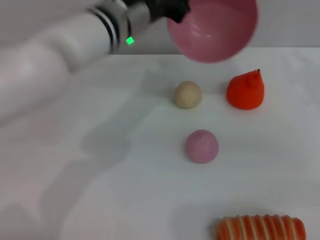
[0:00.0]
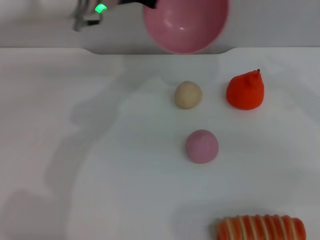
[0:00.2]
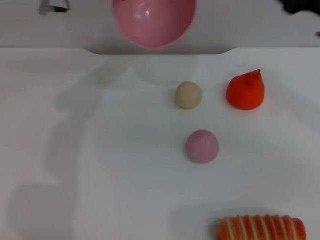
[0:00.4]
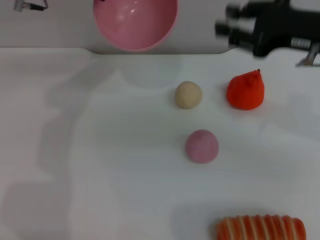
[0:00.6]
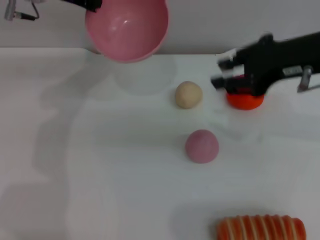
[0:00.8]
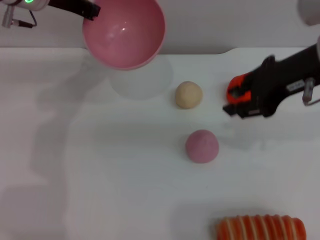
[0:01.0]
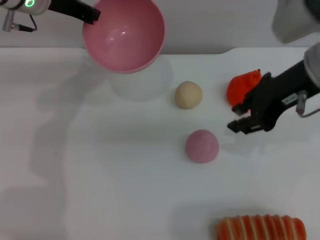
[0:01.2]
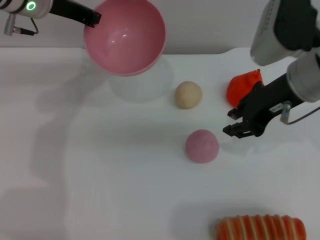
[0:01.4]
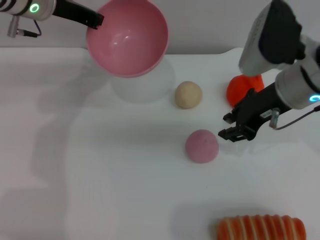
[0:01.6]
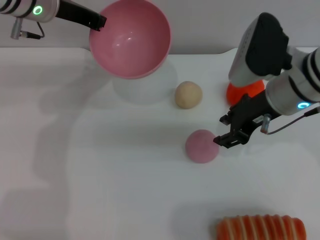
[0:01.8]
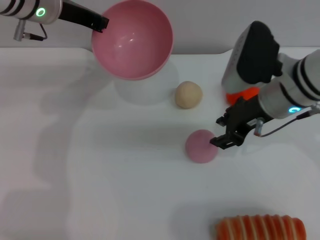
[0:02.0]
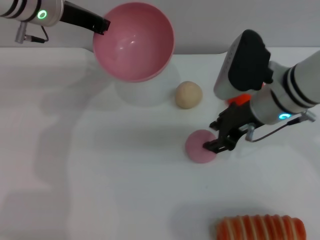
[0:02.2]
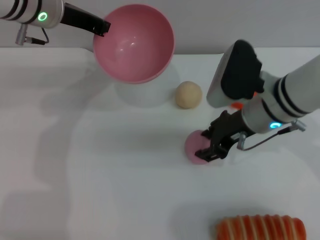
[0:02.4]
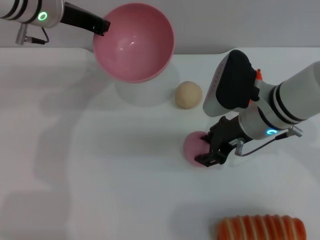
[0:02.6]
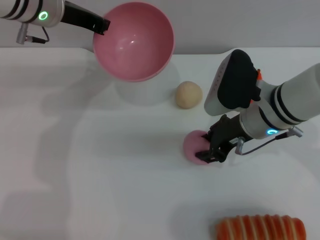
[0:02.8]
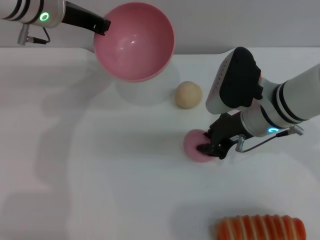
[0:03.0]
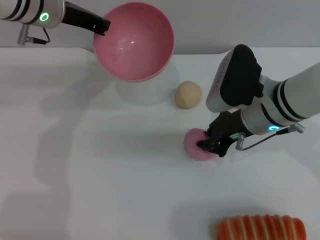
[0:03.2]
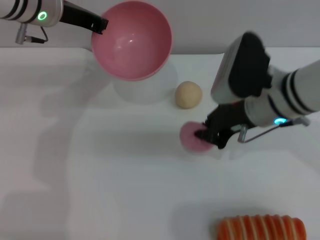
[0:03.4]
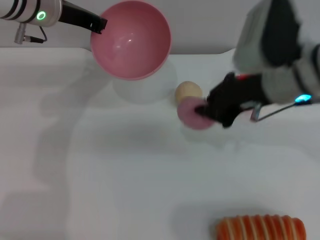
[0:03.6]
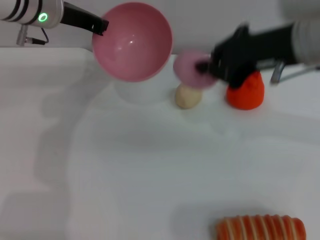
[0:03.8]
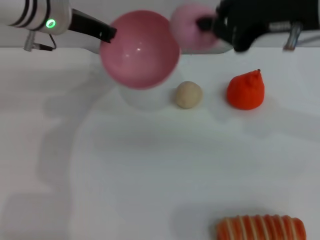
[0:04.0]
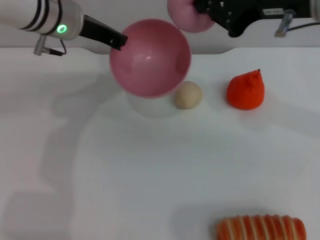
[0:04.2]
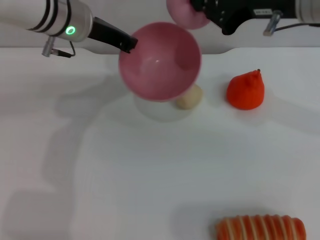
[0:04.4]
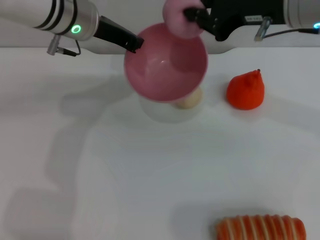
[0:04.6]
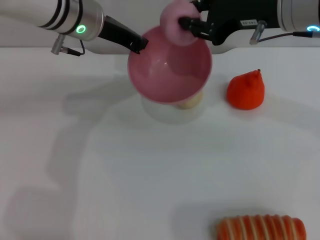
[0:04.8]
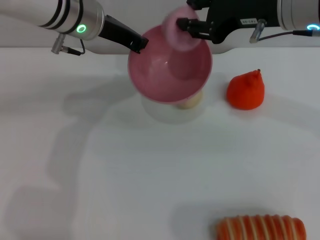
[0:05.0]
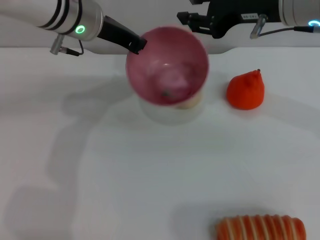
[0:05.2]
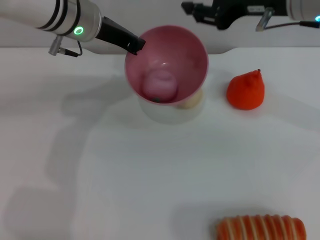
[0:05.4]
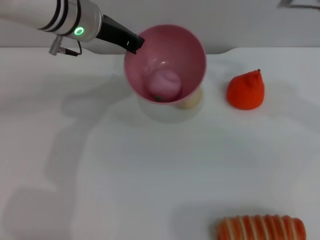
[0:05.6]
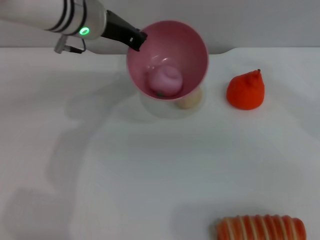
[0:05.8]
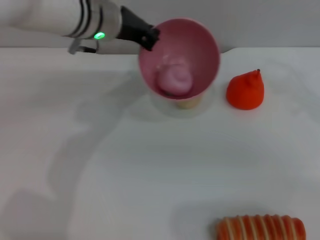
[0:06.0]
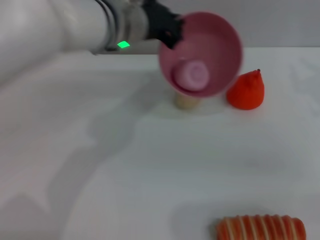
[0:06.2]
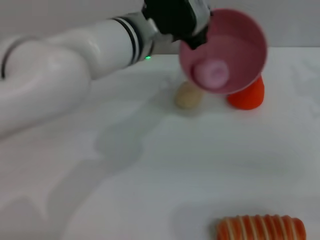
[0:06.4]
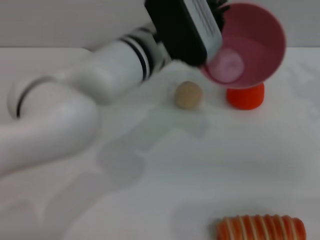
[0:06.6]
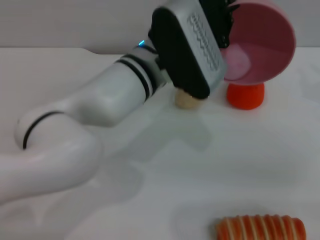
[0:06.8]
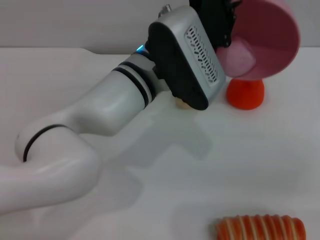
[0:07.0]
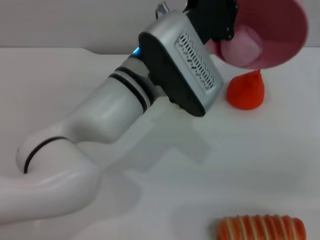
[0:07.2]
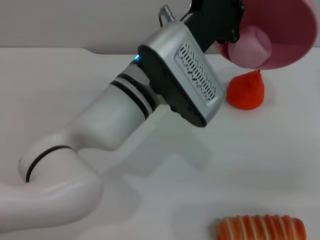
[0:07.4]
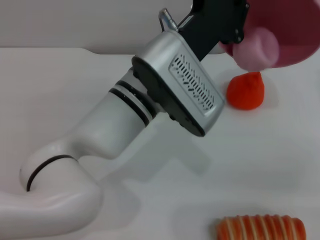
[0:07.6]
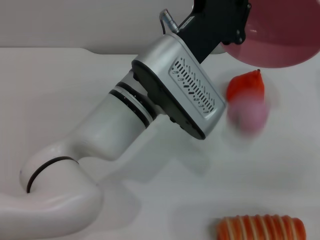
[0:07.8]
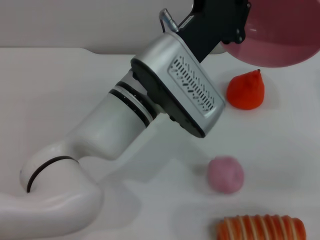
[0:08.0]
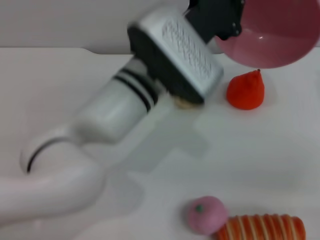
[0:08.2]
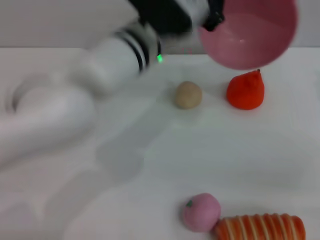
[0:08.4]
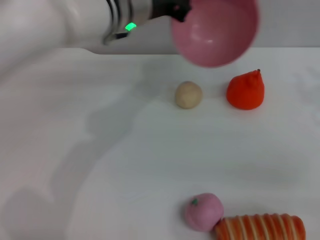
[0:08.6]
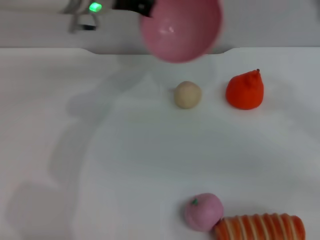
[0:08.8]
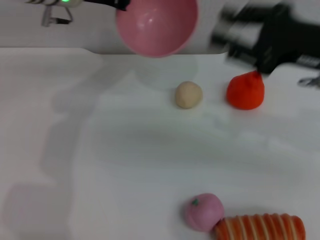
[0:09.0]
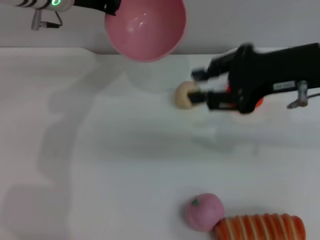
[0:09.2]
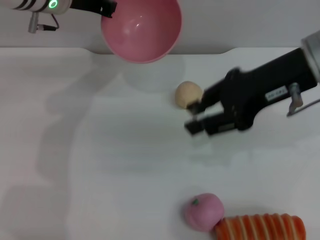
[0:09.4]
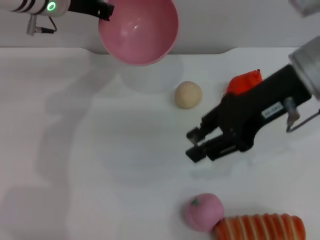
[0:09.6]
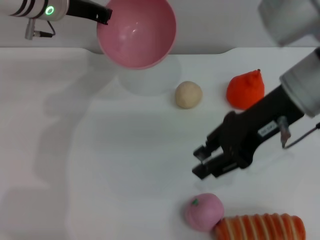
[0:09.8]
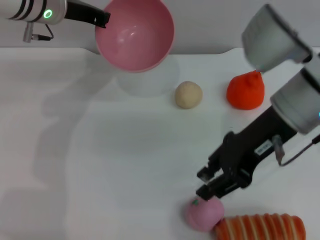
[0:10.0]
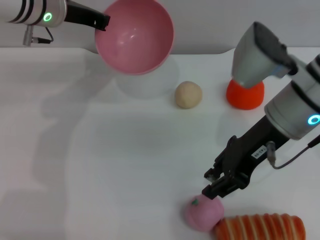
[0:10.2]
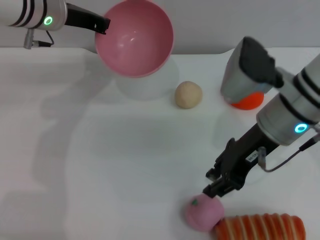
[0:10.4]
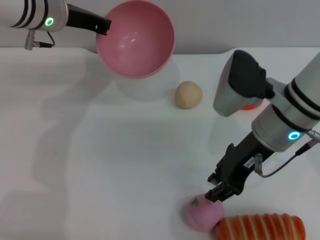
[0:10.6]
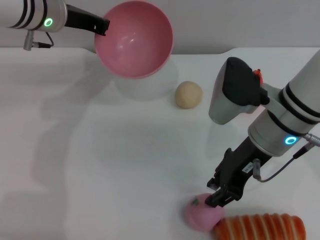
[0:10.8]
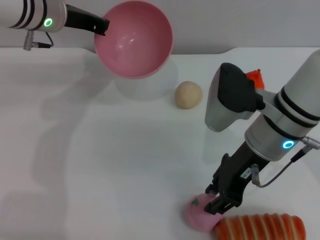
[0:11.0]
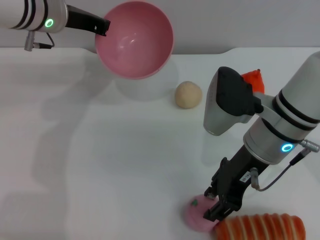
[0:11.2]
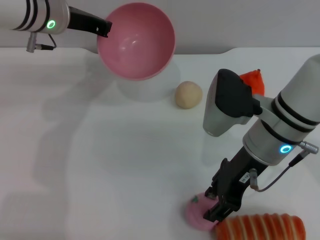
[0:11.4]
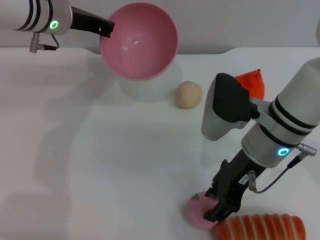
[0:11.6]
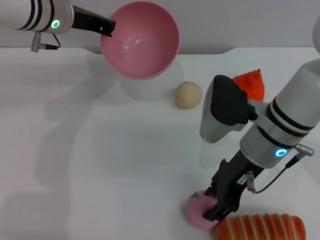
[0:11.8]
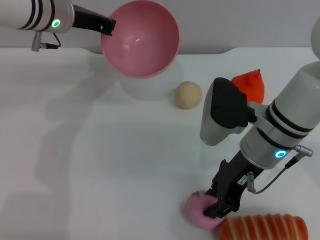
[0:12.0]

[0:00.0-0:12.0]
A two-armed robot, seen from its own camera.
Task of the whole recording: put the peach into the pink bowl and pour it out repeatedly.
Step, 0:00.0 to 0:03.6: Pick up the peach with the right gripper.
Step, 0:03.8 to 0:05.2: Place the peach into the bowl.
Step, 0:05.4 to 0:08.0: Pour the peach out of bowl.
0:00.0 to 0:01.6: The right gripper is displaced to the left by roughly 15 cm; the left gripper goes some 15 cm to the left and forward.
0:01.6 to 0:03.0: The right gripper heads downward, covering roughly 5 cm.
0:03.0 to 0:04.4: The right gripper moves upward, about 15 cm, and closes up.
0:04.4 to 0:06.0: The right gripper is displaced to the right by some 10 cm, and opens up.
0:06.0 to 0:07.6: The right gripper is displaced downward by about 5 cm, while the left gripper moves backward and to the right, approximately 15 cm.
0:07.6 to 0:09.0: The right gripper heads to the left, covering some 10 cm, while the left gripper is displaced forward, to the left and upward by approximately 20 cm.
0:09.0 to 0:10.4: The right gripper goes some 10 cm to the left and downward.
0:10.4 to 0:12.0: The grippers stay close to where they were, moving slightly.

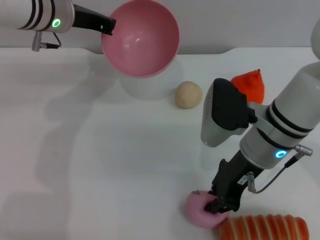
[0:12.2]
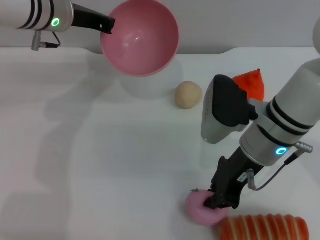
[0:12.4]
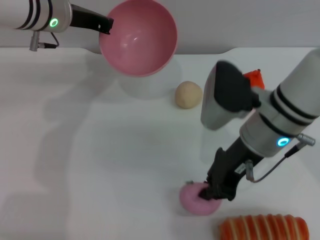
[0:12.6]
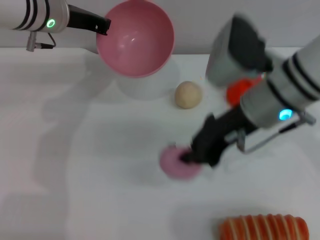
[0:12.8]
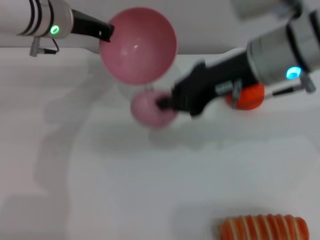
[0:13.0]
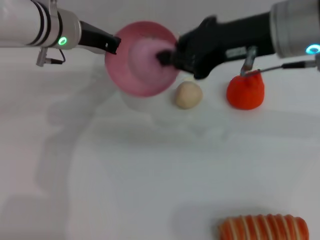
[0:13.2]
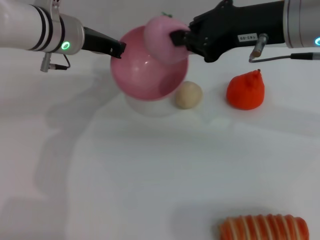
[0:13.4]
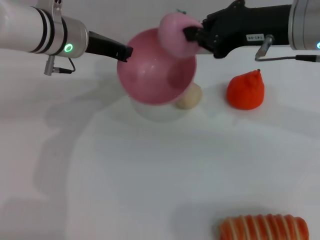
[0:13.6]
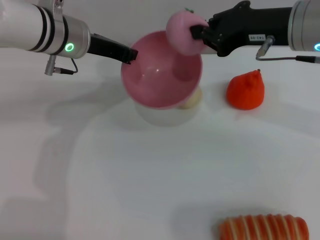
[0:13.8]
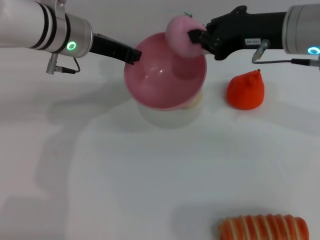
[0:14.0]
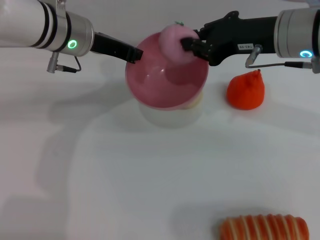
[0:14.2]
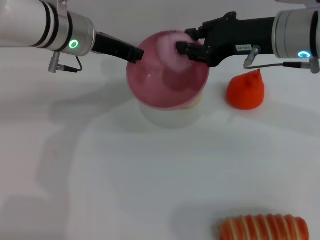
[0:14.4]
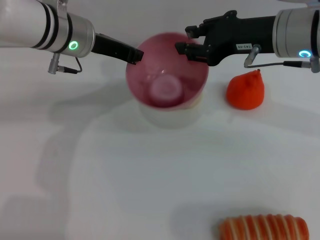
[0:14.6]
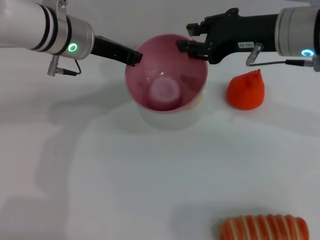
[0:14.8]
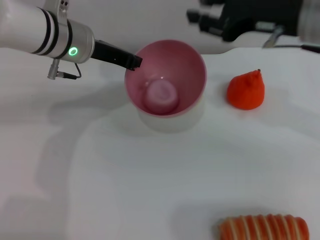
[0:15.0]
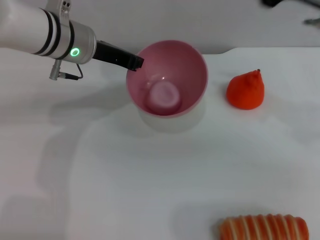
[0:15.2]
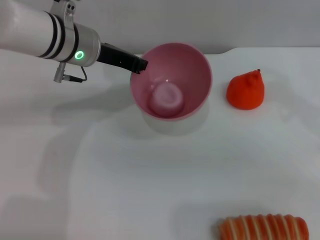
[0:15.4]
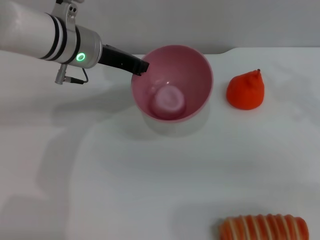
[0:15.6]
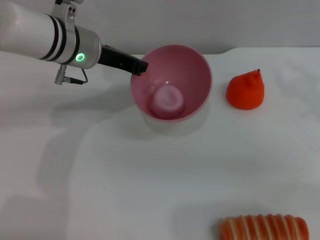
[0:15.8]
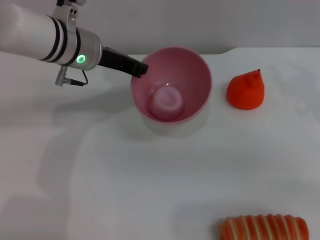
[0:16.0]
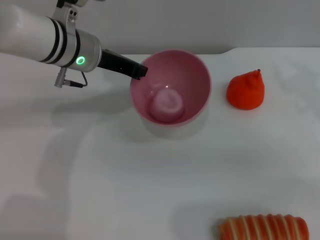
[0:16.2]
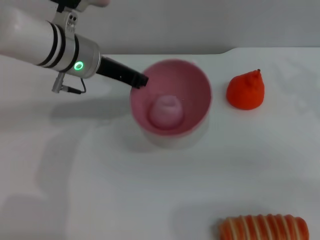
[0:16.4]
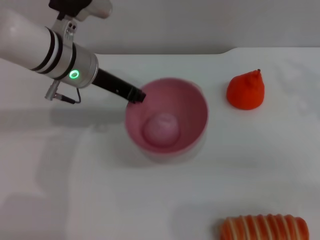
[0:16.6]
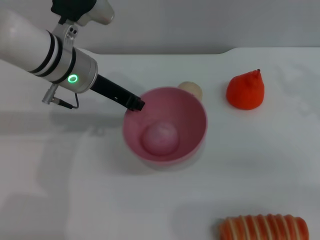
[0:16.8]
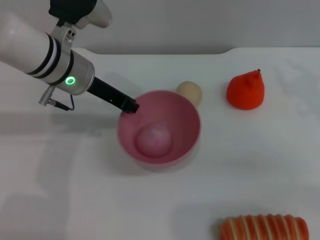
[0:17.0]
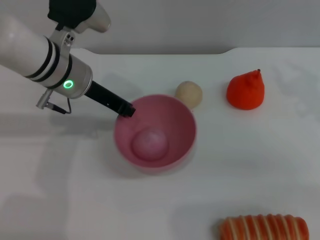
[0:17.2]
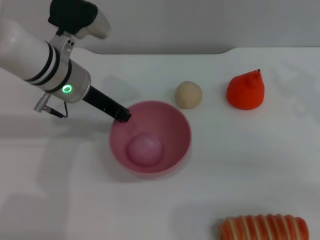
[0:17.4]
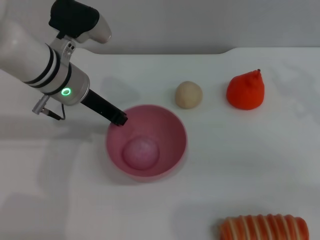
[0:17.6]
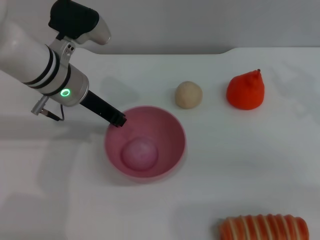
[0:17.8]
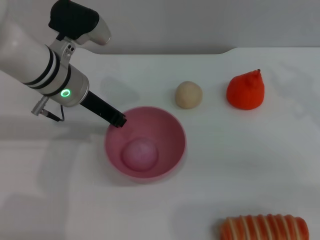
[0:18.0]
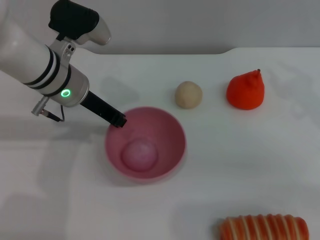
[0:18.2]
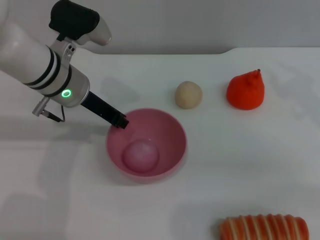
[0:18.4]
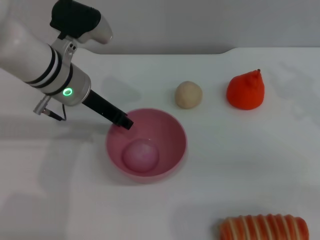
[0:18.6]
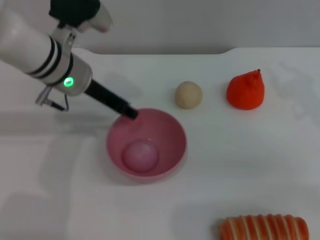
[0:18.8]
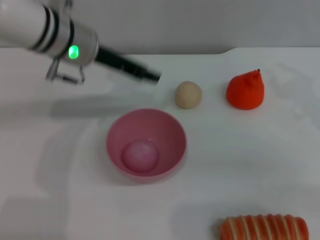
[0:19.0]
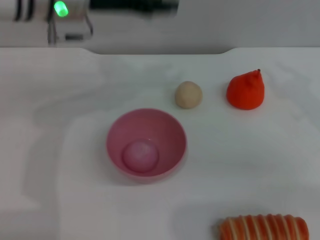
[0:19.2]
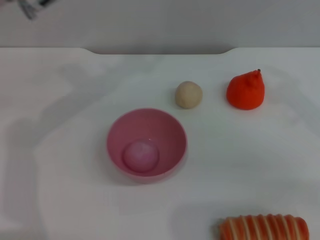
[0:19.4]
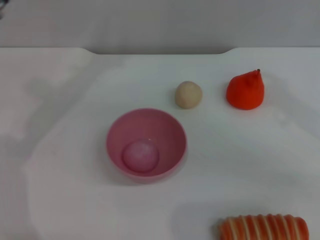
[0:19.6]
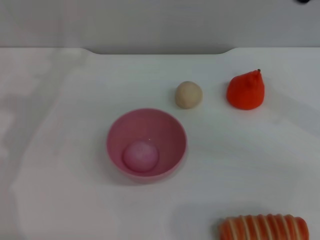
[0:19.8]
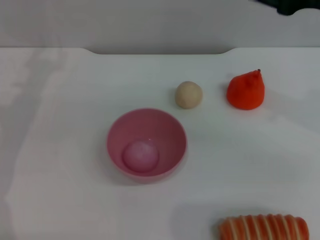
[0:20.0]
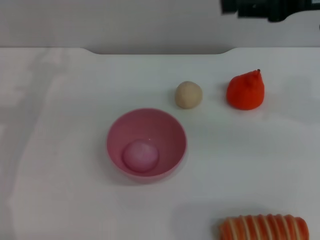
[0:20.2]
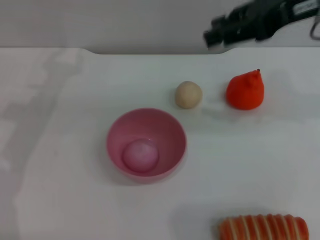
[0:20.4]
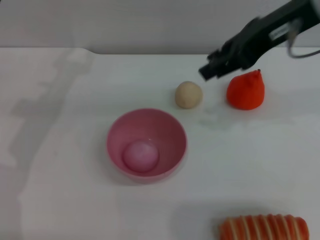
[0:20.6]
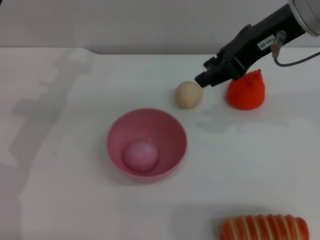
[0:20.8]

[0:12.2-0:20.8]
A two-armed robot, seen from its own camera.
Task of the whole recording: put the peach into the pink bowl and pour it out repeatedly.
Step, 0:13.0 to 0:14.8: Place the peach into the bowl.
Step, 0:15.0 to 0:18.8: Place the bowl on the table.
0:12.2 to 0:13.6: The right gripper heads upward, covering roughly 10 cm, and closes its fingers.
0:13.6 to 0:15.0: The right gripper opens its fingers.
0:15.0 to 0:16.6: The right gripper is displaced to the right by about 10 cm.
0:16.6 to 0:18.0: The grippers make only small movements.
0:18.0 to 0:19.4: The left gripper moves upward, roughly 10 cm, and opens up.
0:19.4 to 0:20.8: The left gripper moves downward and to the left, about 10 cm. Meanwhile the right gripper goes roughly 15 cm to the left and upward.
